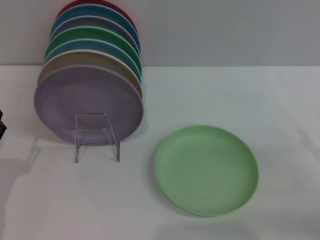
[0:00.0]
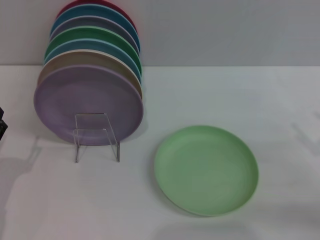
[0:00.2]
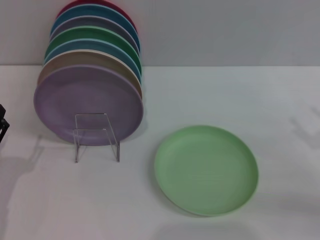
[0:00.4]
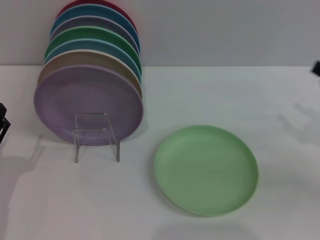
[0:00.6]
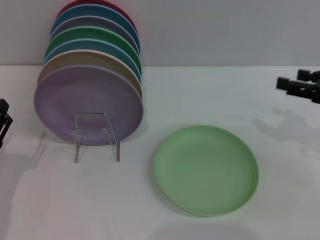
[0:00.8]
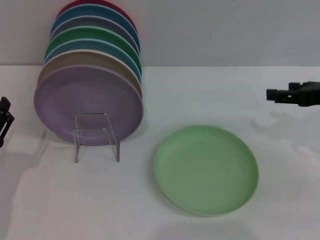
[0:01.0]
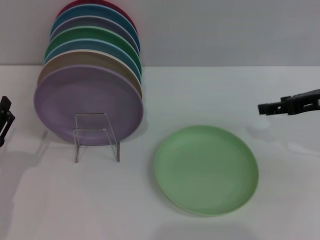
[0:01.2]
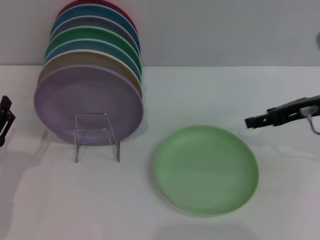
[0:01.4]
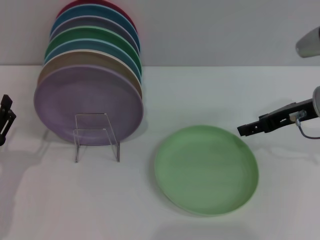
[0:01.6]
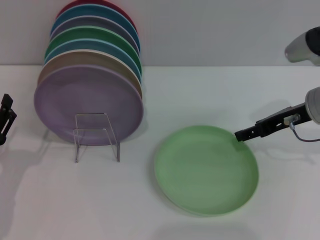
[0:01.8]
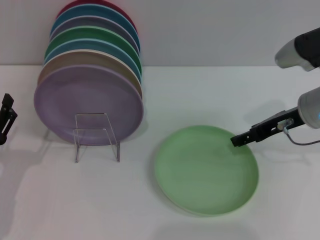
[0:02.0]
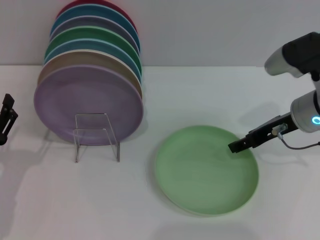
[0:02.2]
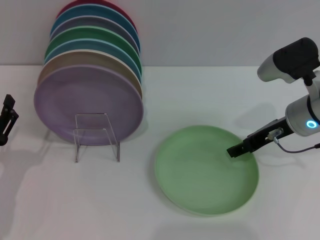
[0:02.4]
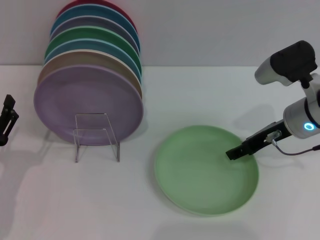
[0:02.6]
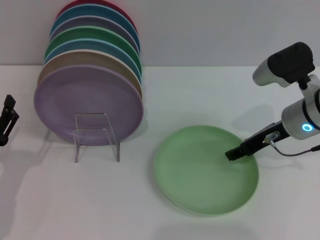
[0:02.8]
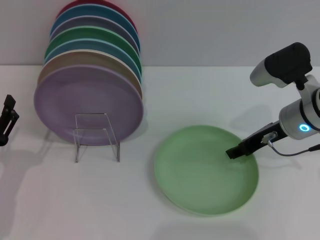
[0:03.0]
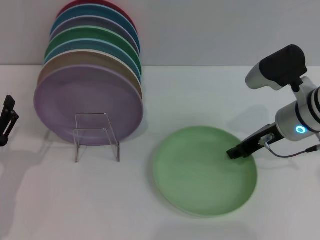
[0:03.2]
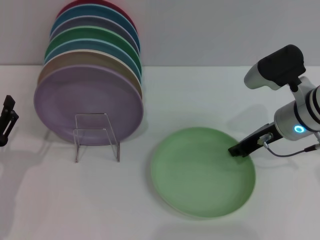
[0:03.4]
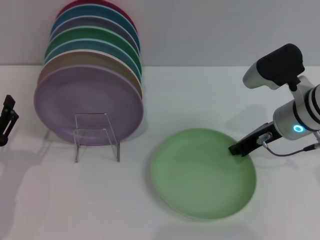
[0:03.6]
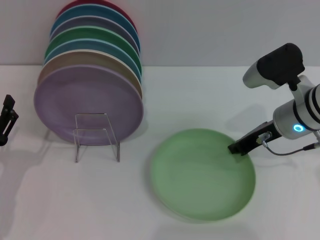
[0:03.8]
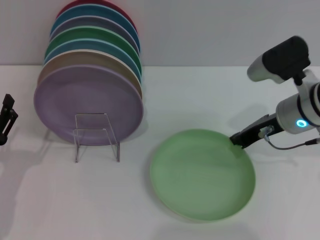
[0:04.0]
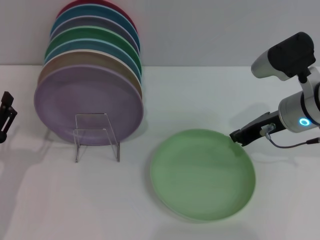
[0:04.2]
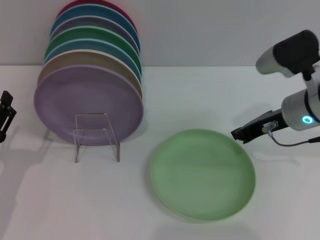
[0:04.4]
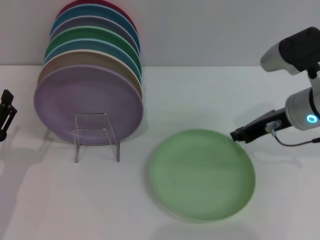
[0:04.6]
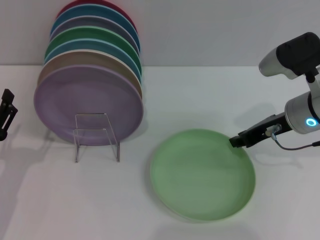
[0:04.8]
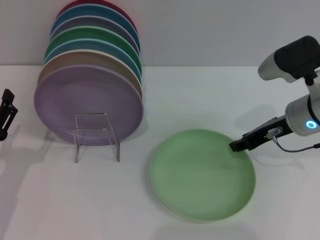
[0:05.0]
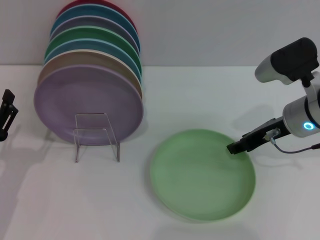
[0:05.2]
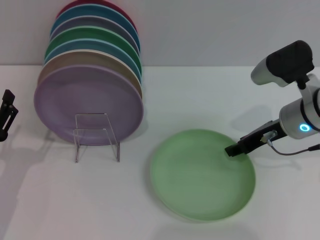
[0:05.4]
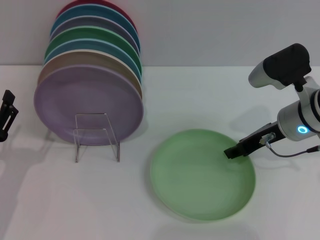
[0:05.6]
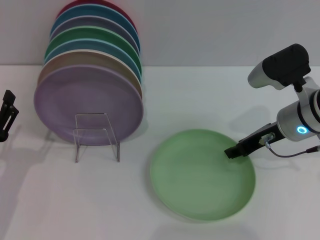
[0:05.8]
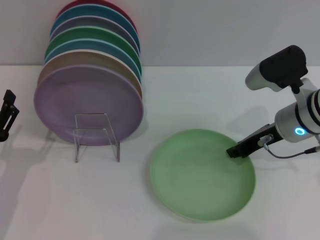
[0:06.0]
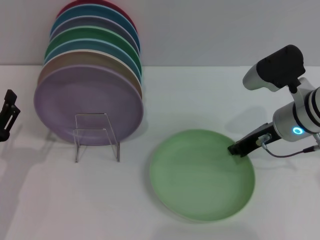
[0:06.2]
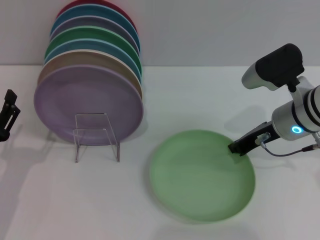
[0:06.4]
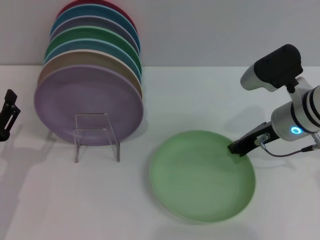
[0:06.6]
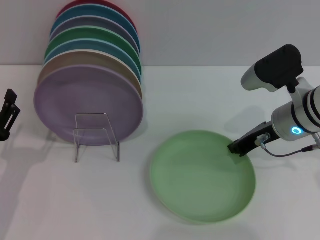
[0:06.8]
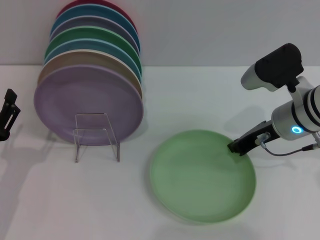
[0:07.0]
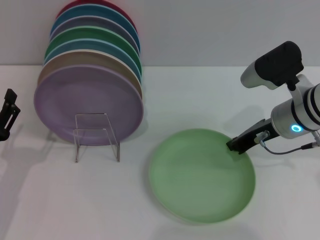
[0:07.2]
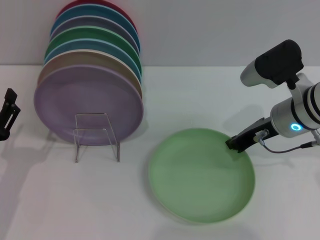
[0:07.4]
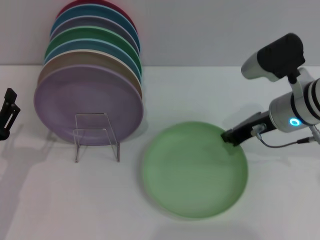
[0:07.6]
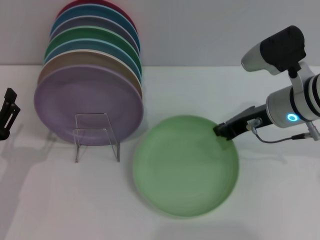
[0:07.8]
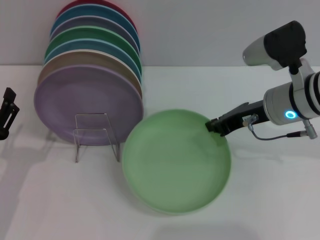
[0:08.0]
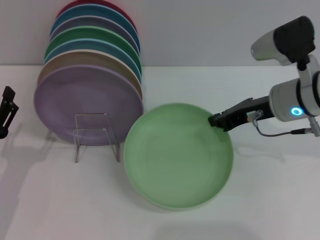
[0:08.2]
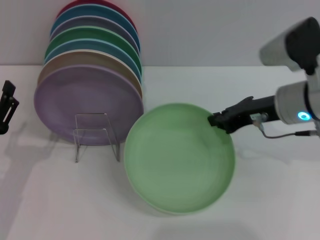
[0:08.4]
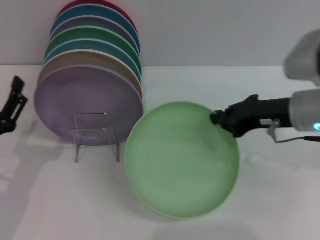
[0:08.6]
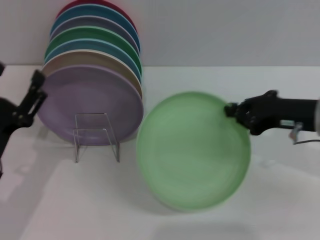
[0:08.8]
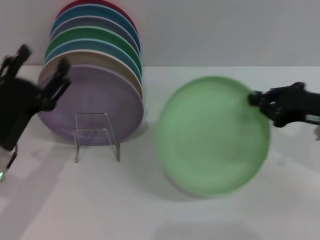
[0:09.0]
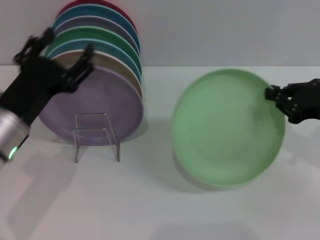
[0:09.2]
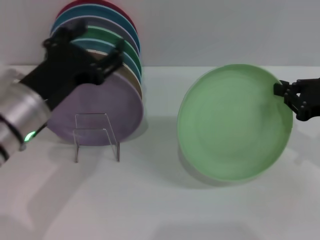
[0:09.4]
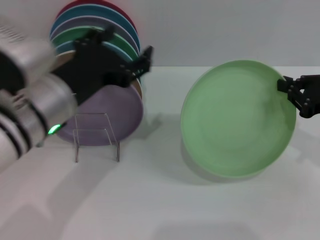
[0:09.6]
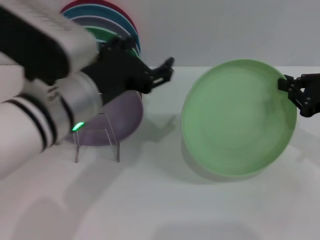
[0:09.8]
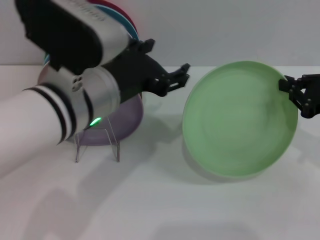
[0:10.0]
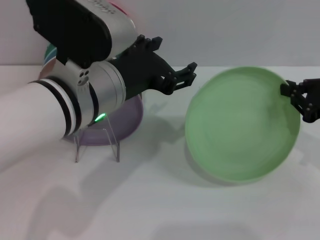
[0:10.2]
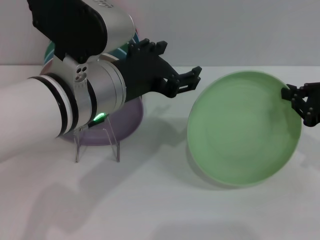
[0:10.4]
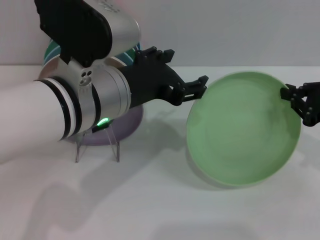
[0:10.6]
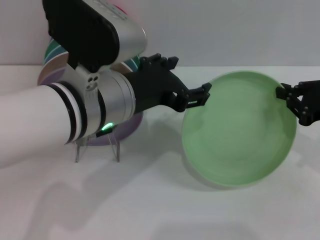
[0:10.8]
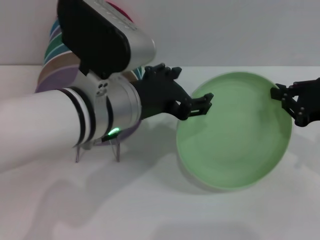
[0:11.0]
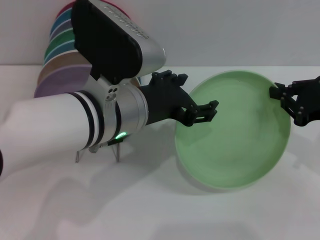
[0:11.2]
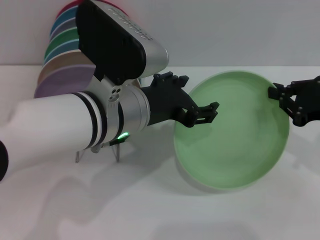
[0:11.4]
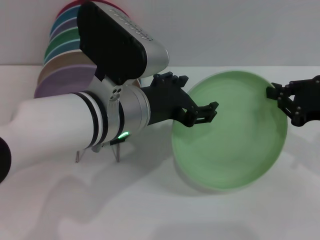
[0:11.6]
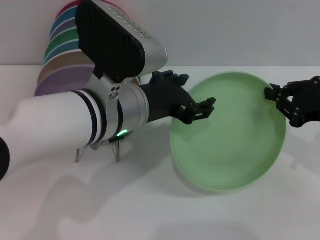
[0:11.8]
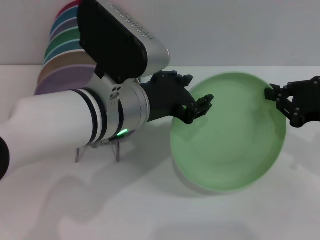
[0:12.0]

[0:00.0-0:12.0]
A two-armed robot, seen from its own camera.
Task of the whole recording: Grip the plate with one hand, pass it to the other, then set it on the shelf.
Step, 0:00.0 to 0:08.0: Pick up the plate with the right gripper.
0:00.0 to 0:01.6: The right gripper goes some 20 cm forward, to the left and upward.
0:01.6 to 0:03.0: The right gripper changes place by some 5 cm.
0:03.0 to 0:04.4: The right gripper closes.
0:04.4 to 0:06.0: The right gripper opens its fingers.
0:06.0 to 0:07.6: The right gripper closes.
0:07.6 to 0:09.0: The right gripper moves to the right and backward, roughly 10 cm. Meanwhile the left gripper shifts by roughly 10 cm.
0:09.0 to 0:10.4: The left gripper shifts about 20 cm to the right and upward.

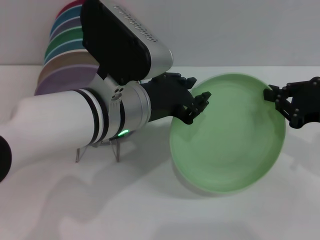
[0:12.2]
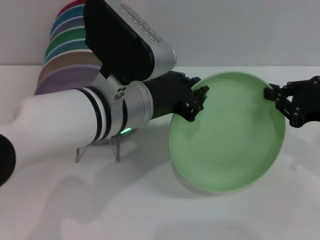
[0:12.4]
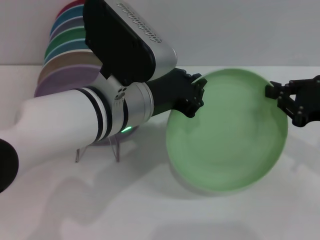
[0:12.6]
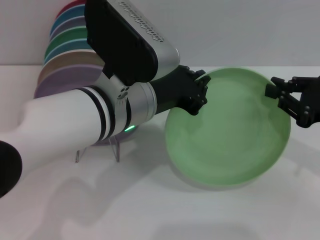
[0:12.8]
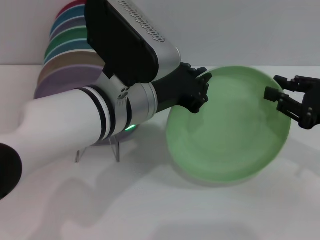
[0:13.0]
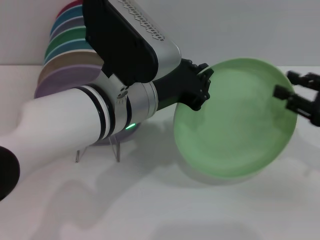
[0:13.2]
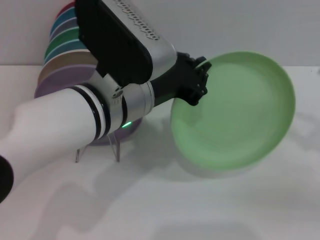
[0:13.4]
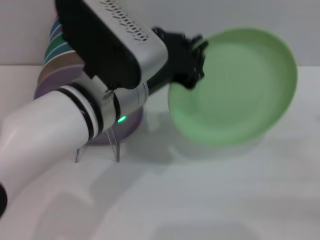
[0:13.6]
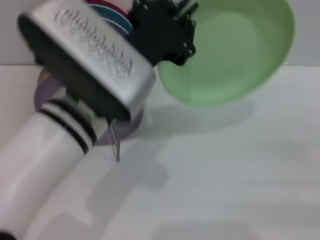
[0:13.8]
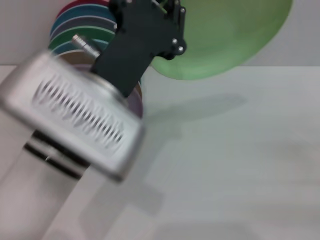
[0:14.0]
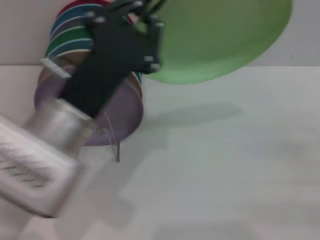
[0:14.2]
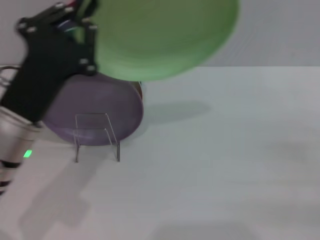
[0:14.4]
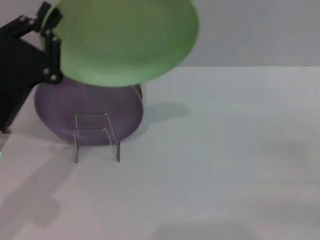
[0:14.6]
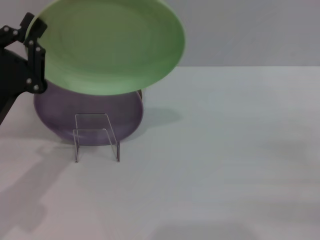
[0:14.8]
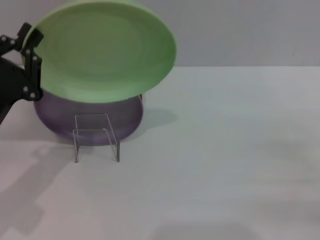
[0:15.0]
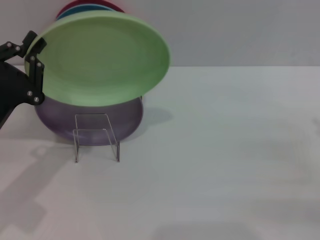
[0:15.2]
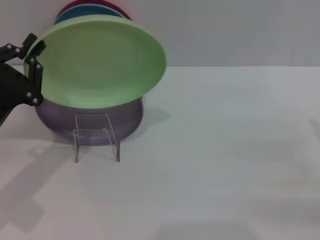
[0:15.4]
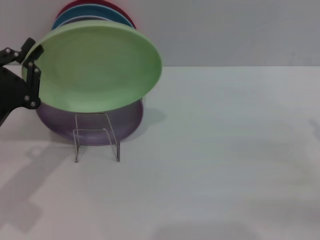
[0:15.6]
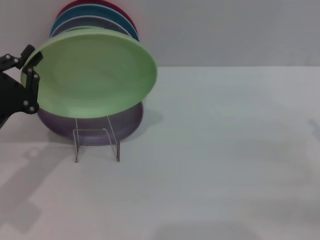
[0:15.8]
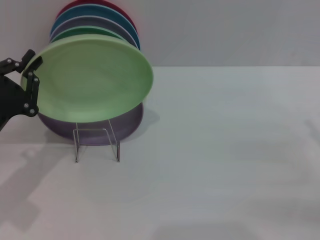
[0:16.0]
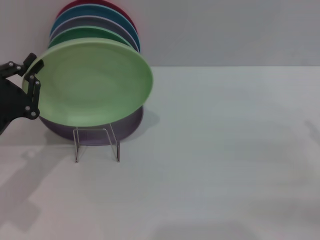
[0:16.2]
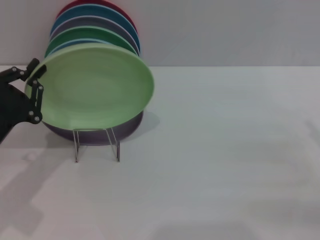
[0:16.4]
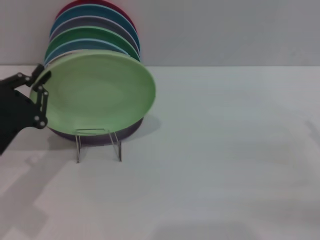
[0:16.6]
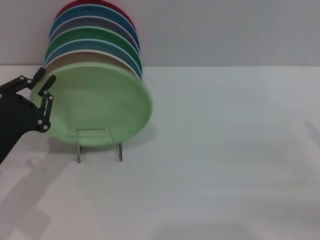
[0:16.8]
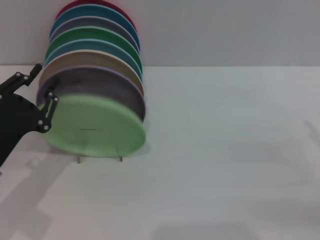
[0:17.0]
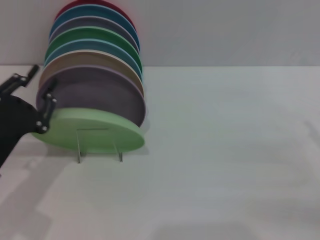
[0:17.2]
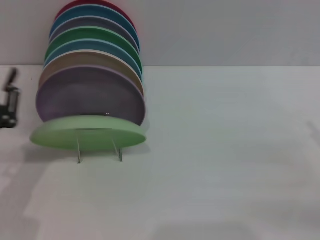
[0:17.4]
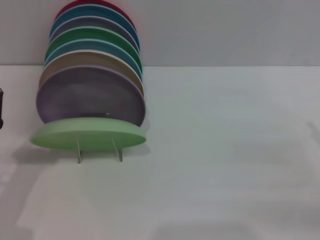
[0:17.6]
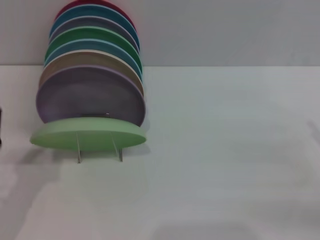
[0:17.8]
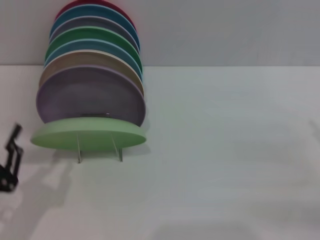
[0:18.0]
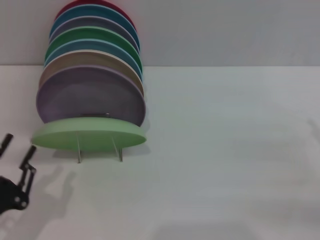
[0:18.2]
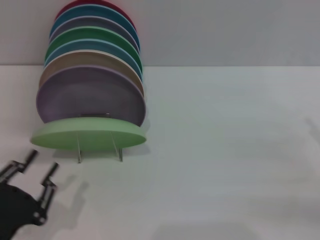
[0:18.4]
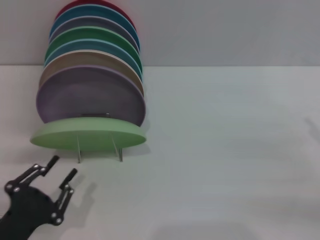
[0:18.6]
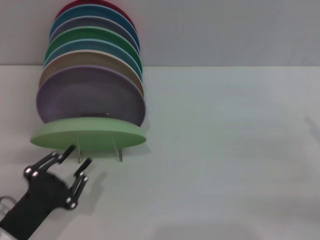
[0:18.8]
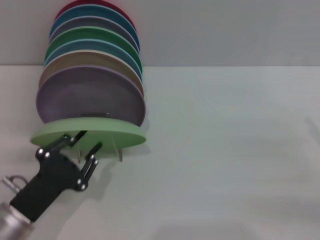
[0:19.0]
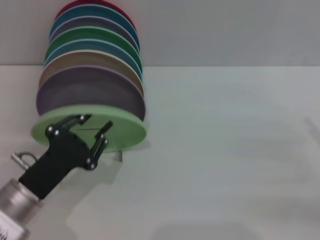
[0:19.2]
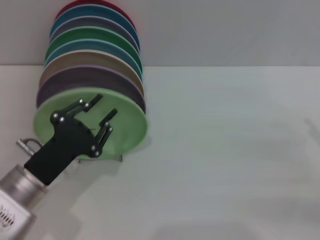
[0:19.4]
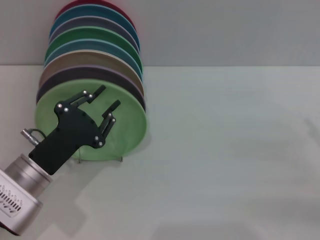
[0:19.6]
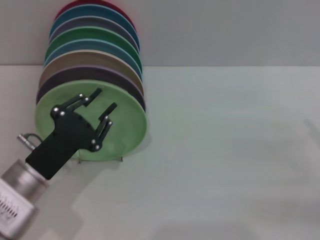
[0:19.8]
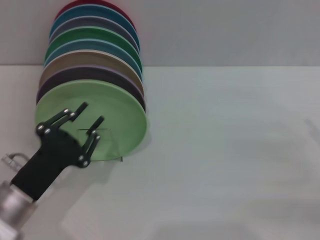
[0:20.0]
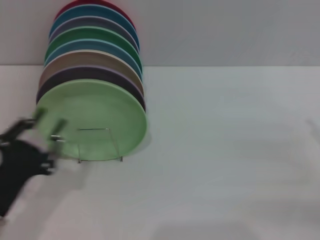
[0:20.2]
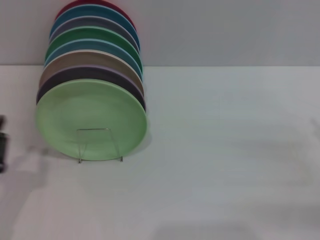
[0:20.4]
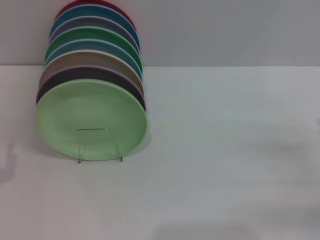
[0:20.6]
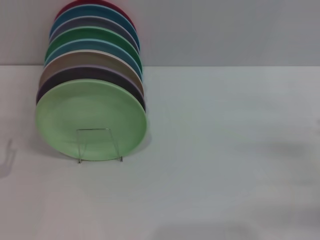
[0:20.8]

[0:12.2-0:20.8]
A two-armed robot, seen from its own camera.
Task of the whole recording: Grip the plate with one hand, pass it to the other, then set it on the shelf.
Step, 0:13.6 to 0:19.6: Place the plate on the shelf with the left gripper.
0:12.2 to 0:13.6: The right gripper shifts roughly 10 cm to the right and backward, and opens. The left gripper closes.
0:13.6 to 0:15.0: The left gripper heads to the left and downward, covering approximately 20 cm.
0:15.0 to 0:16.6: The grippers move only a little.
0:16.6 to 0:18.0: The left gripper shifts roughly 10 cm backward.
0:18.0 to 0:19.4: The left gripper heads forward and to the right, covering roughly 10 cm.
0:19.4 to 0:20.8: The left gripper heads to the left and backward, covering about 10 cm.
